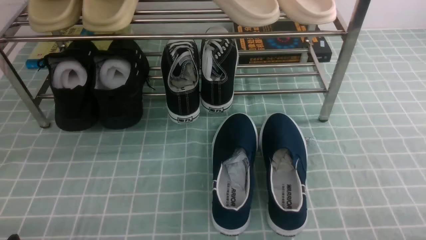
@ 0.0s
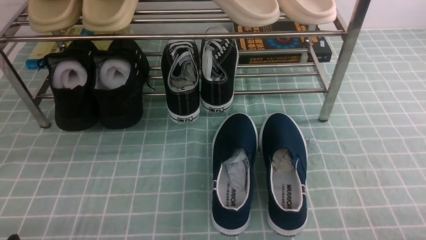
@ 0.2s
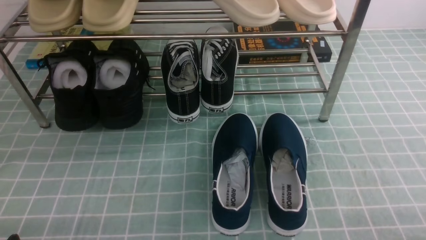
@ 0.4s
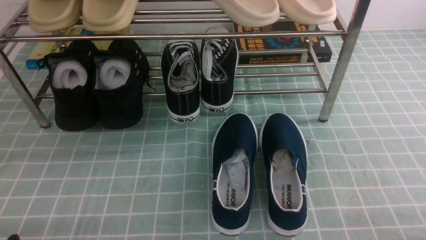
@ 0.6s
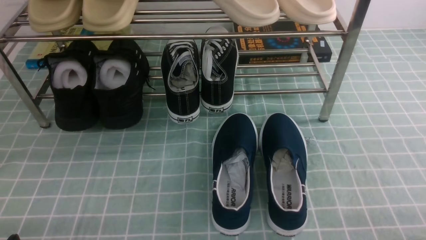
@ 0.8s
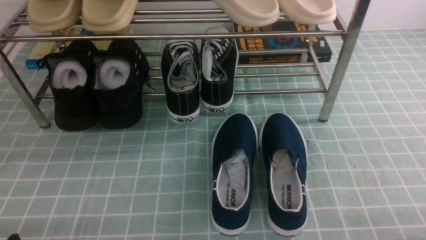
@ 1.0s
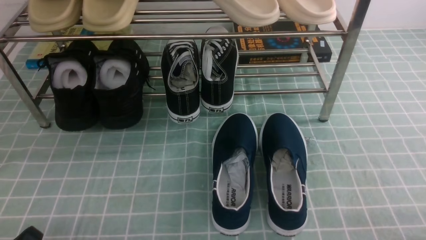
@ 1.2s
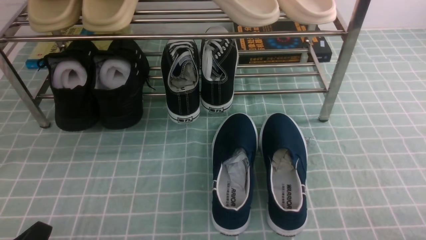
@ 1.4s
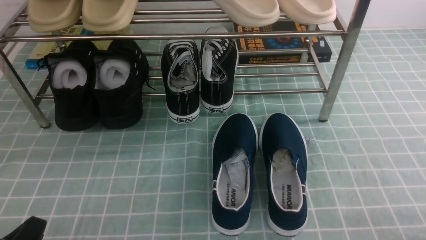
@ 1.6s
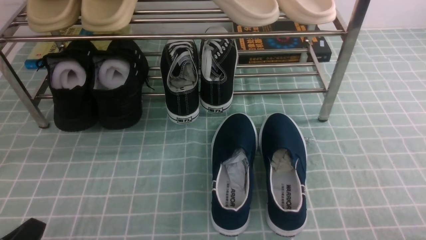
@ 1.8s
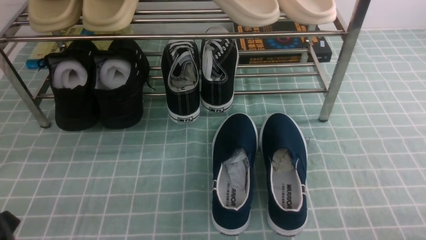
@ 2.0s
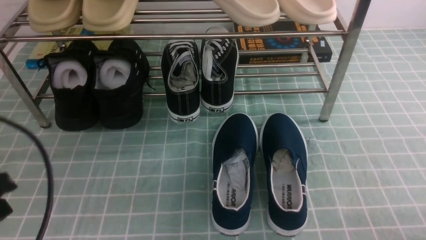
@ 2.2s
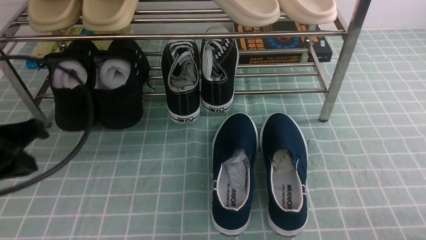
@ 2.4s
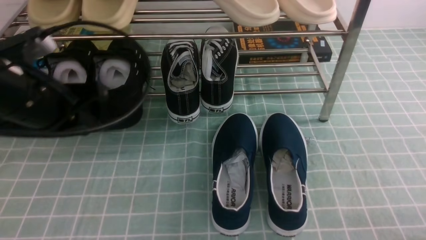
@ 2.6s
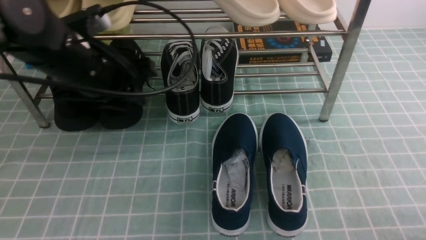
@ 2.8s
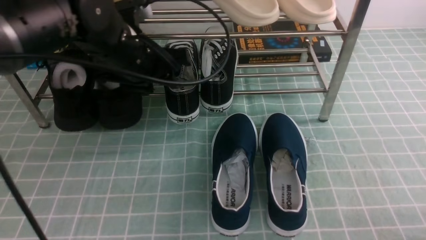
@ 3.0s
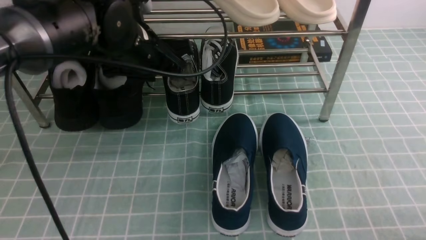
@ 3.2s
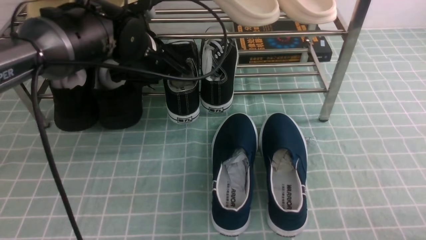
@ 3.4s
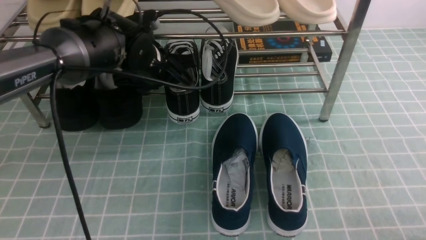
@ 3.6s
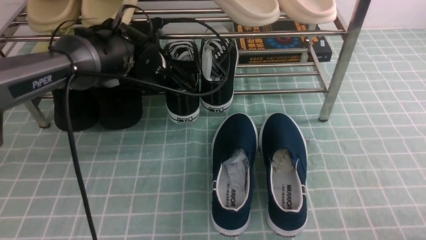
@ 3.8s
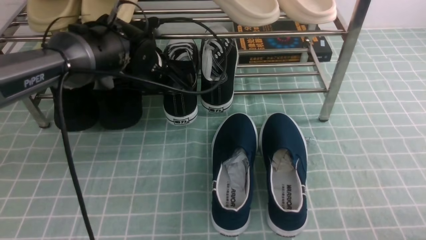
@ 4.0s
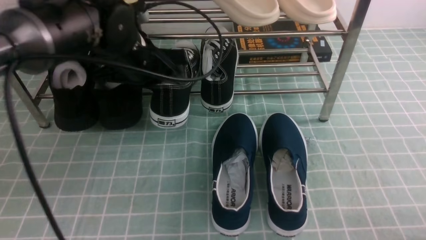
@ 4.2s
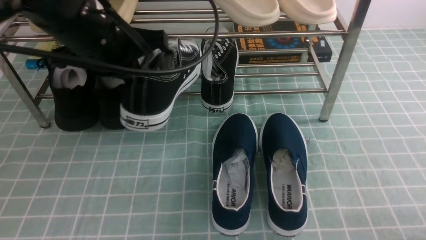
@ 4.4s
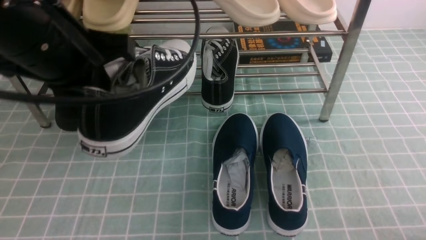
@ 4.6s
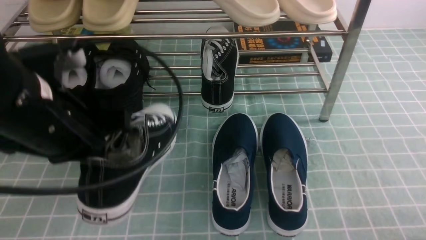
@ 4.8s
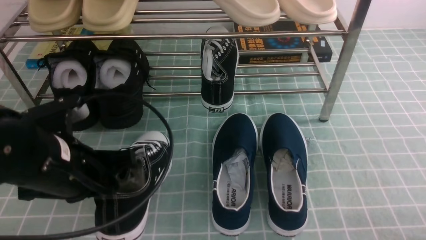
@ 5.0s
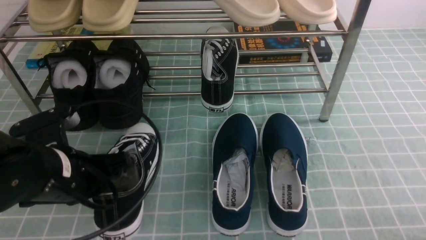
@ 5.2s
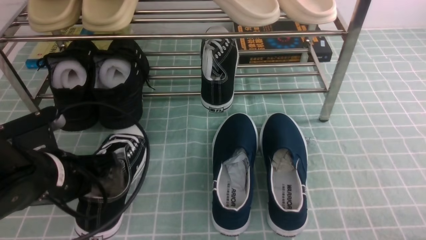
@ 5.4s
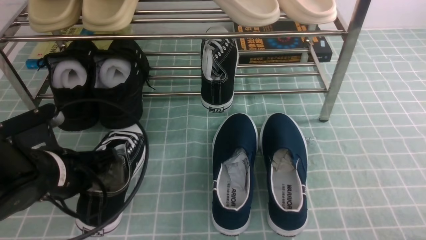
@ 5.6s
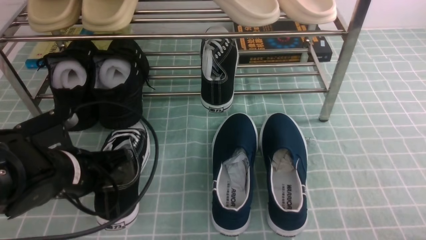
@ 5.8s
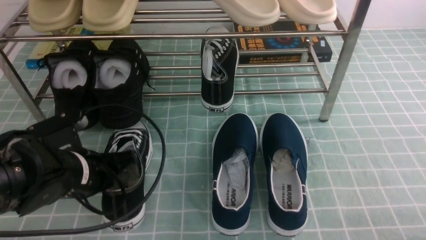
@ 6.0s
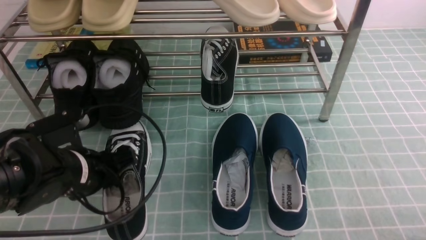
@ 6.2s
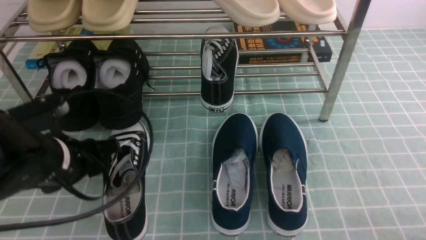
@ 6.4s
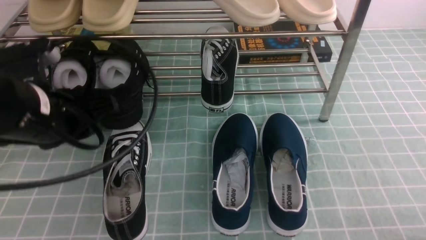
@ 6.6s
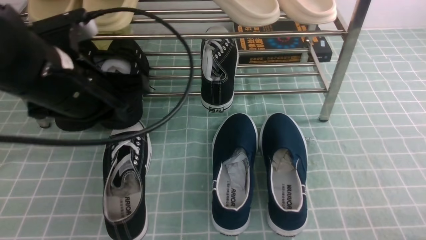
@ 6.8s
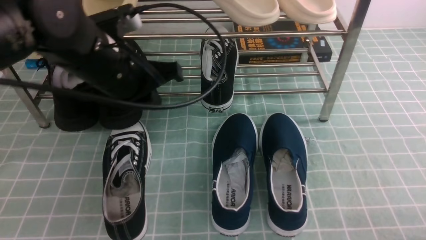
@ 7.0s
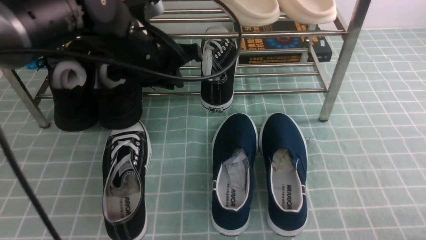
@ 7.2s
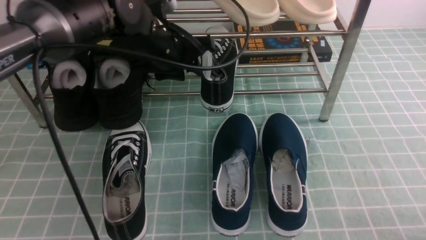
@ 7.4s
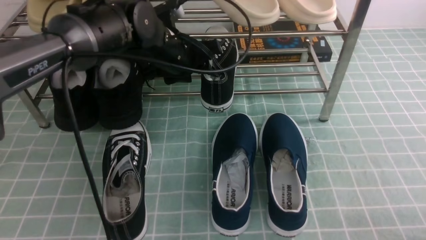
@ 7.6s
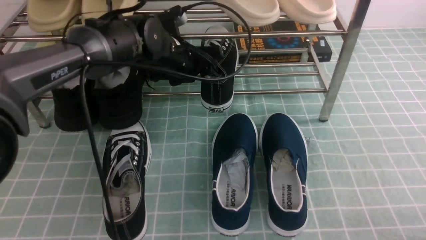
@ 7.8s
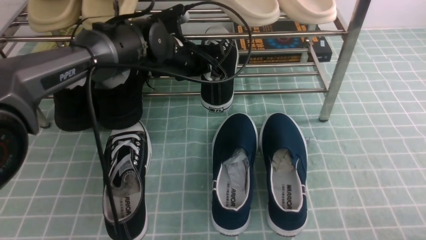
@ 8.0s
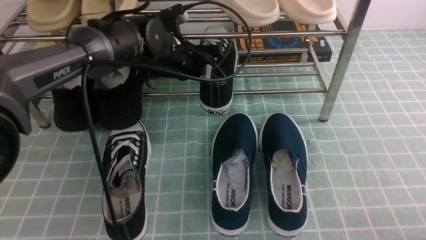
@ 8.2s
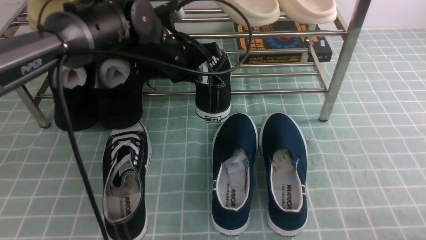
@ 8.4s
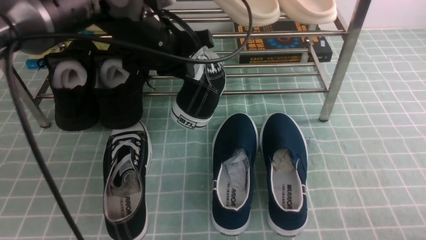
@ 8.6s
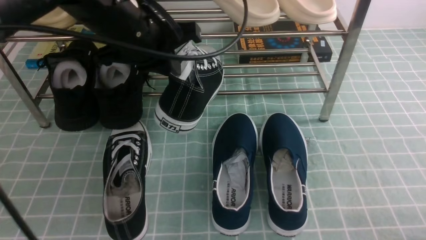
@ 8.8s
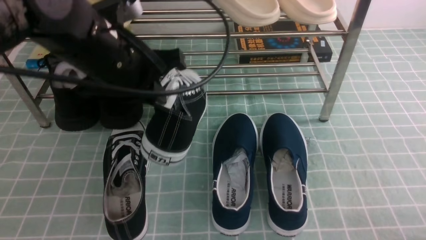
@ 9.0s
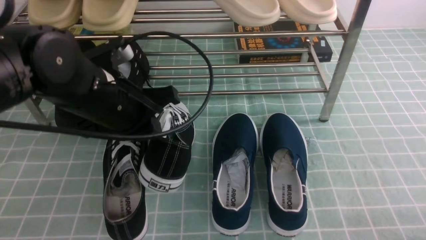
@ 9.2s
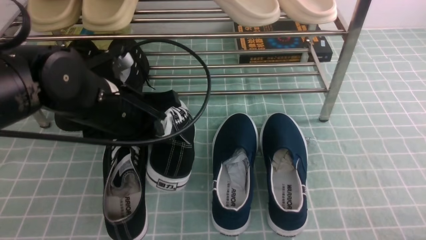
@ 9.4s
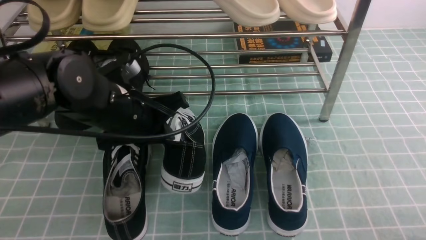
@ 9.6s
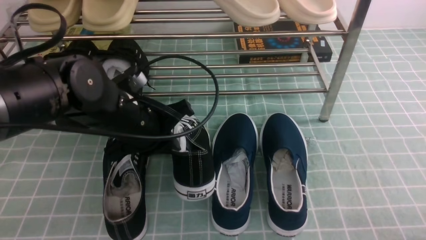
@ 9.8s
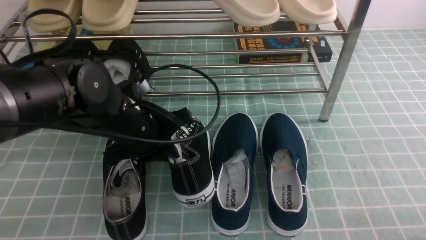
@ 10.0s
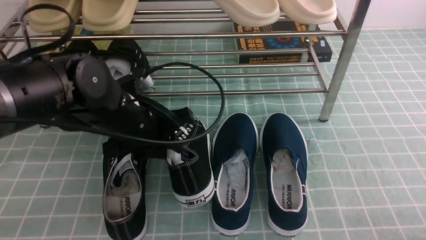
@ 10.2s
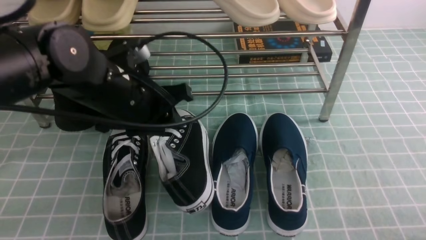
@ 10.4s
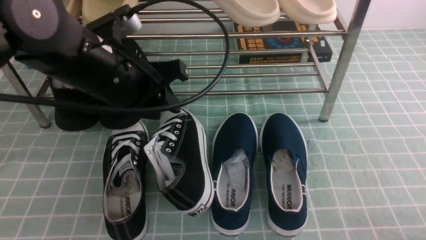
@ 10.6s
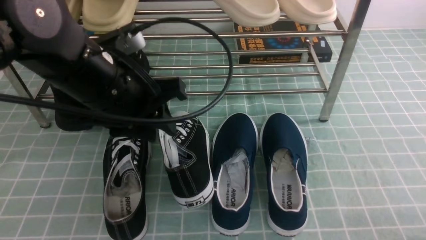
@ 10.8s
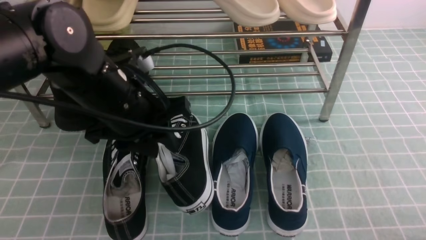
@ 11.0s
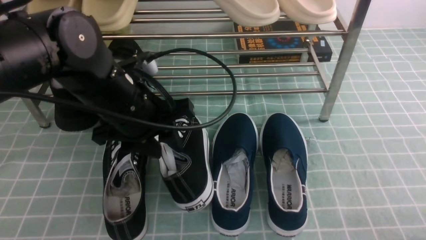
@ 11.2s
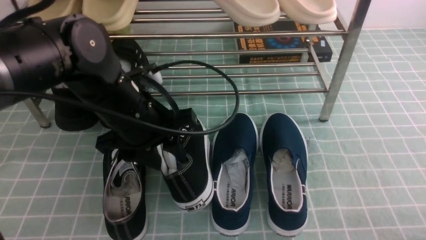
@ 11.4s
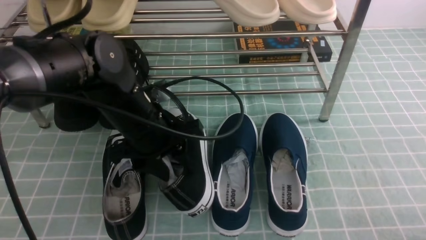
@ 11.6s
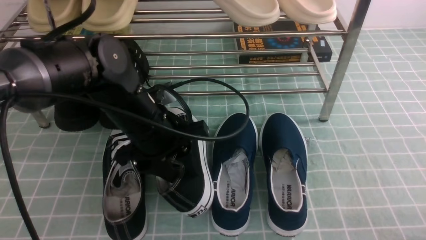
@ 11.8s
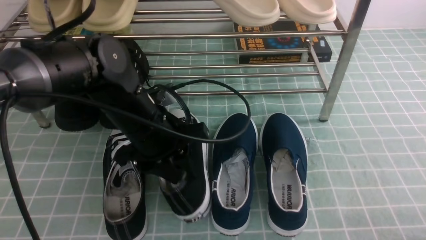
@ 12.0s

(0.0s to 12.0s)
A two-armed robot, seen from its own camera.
Step, 0.0s - 3.8s: use the left arm to clamp a shoe in the middle of the shoe rack.
Step, 4.0s - 6.6s: Use your left arm to remove the clamped shoe from the shoe rack and put it down.
Step, 6.8s - 8.0s: use the left arm to clamp a shoe in the middle of the shoe rack.
1.6s - 3.0s: The left gripper shifts some 35 cm forward, upward and to the right, and opens up.
3.0s - 4.4s: The left gripper shifts approximately 10 cm upward and backward, and closes.
4.4s - 6.0s: The left gripper is displaced downward and backward by about 15 cm.
6.0s - 7.6s: The left gripper is displaced forward and to the right by some 20 cm, and opens up.
7.6s - 9.0s: The left gripper moves backward and upward, about 15 cm, and closes.
9.0s - 10.4s: The left gripper opens its fingers.
10.4s - 12.0s: The left gripper travels downward by roughly 5 cm.

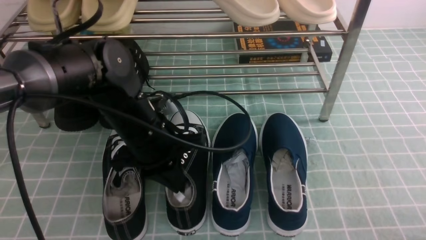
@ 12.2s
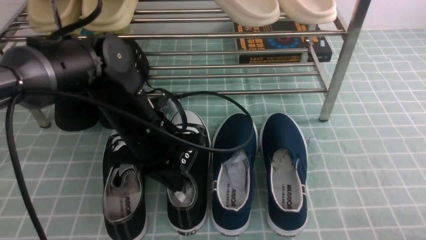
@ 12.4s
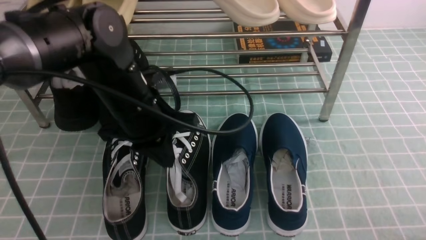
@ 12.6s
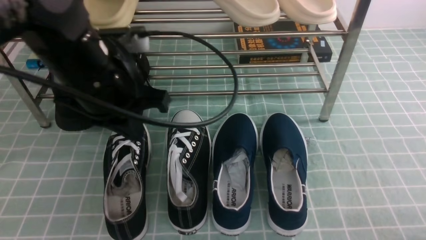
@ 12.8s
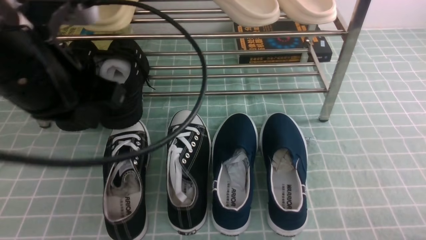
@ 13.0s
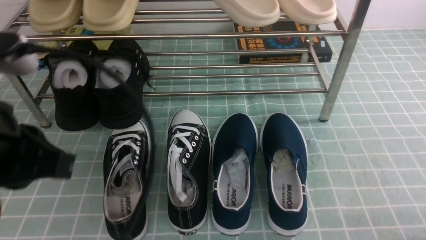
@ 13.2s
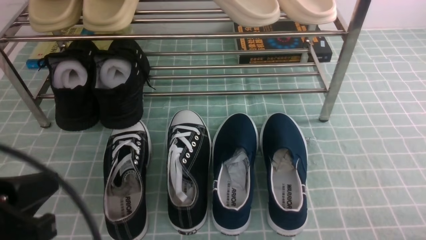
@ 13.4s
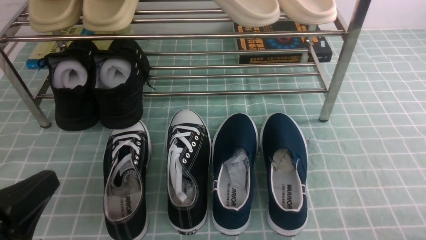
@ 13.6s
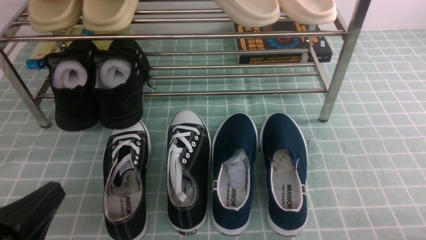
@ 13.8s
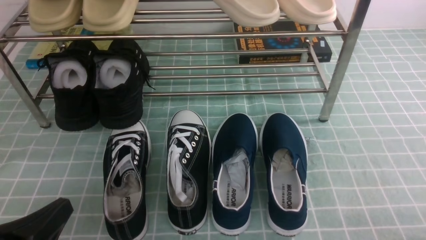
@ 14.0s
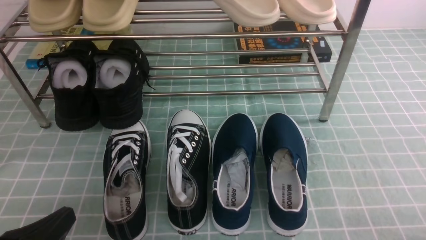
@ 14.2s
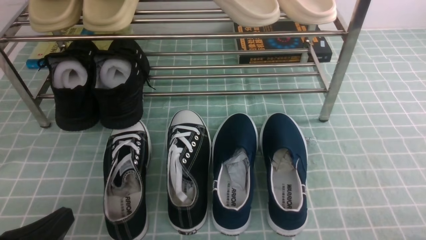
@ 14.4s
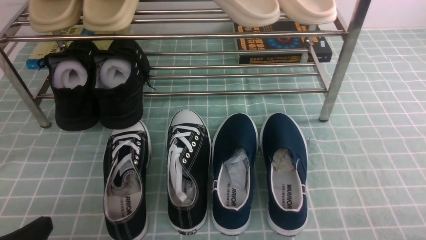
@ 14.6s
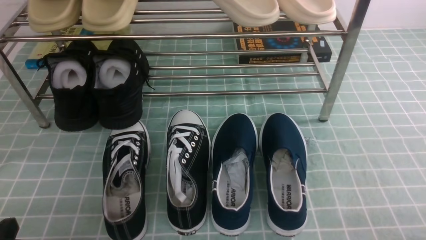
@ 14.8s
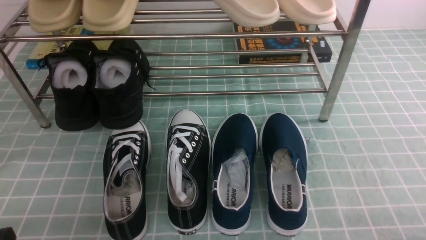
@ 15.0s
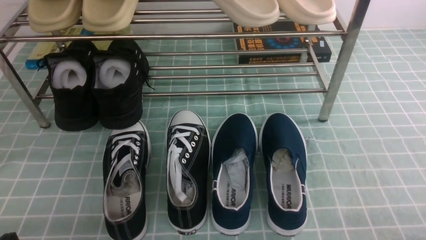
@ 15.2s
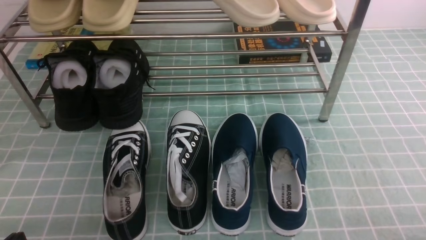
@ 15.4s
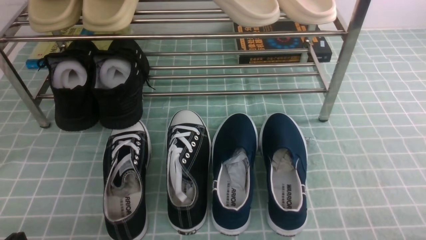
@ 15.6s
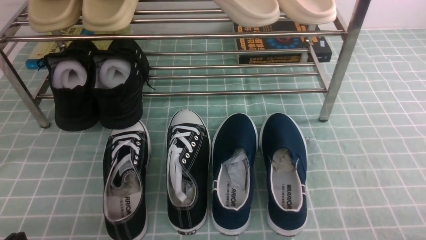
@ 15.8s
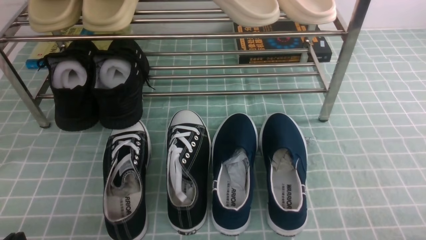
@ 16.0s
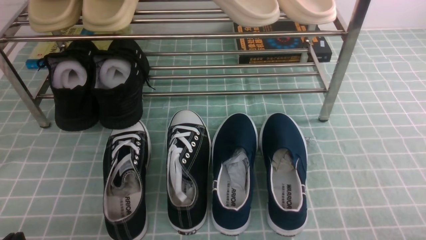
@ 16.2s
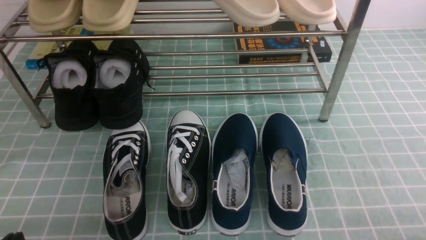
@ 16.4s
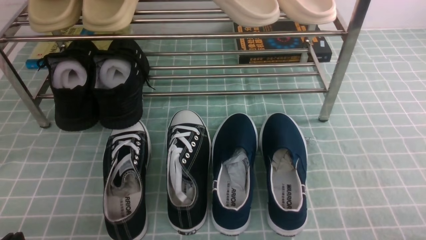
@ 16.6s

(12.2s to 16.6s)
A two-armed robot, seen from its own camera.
12.2s - 13.6s: The left gripper heads backward and to the left, covering approximately 25 cm.
13.6s - 15.2s: The left gripper shifts about 10 cm downward.
15.2s - 16.6s: The two grippers keep their place.
